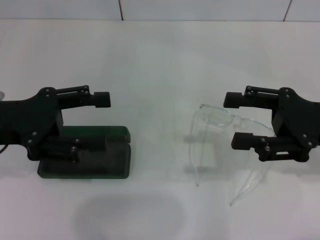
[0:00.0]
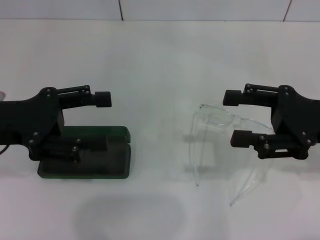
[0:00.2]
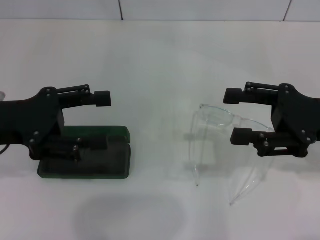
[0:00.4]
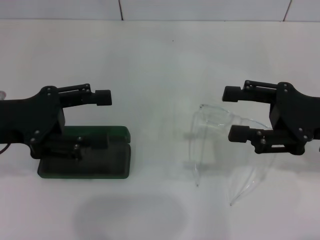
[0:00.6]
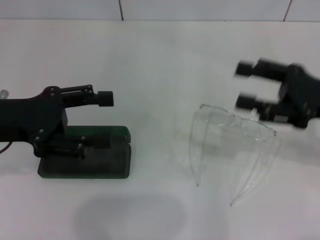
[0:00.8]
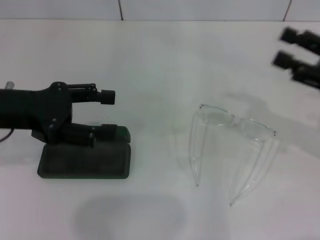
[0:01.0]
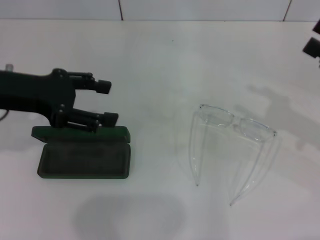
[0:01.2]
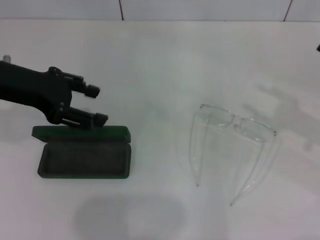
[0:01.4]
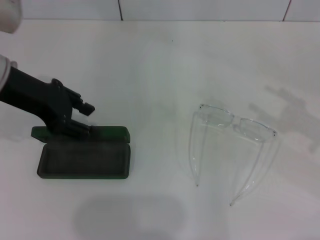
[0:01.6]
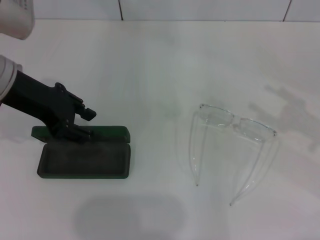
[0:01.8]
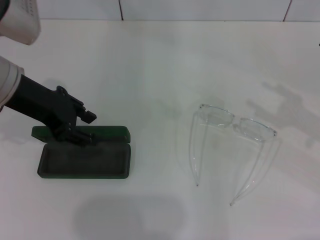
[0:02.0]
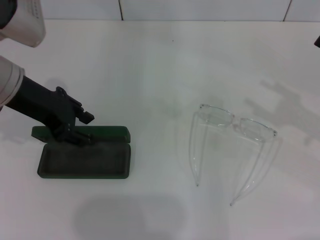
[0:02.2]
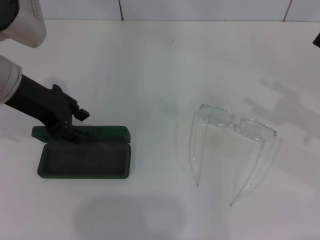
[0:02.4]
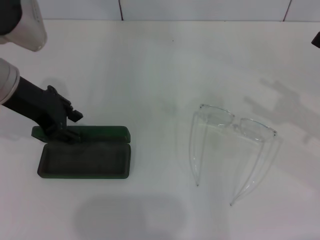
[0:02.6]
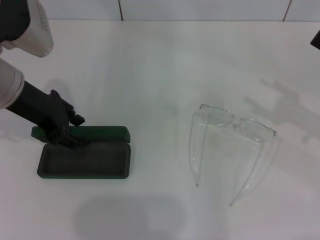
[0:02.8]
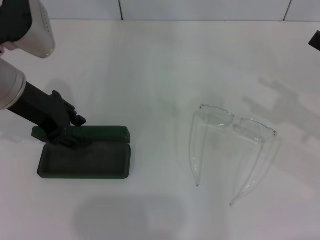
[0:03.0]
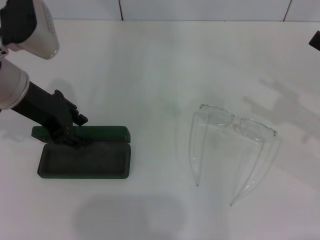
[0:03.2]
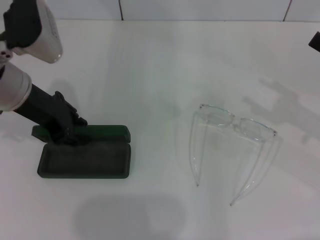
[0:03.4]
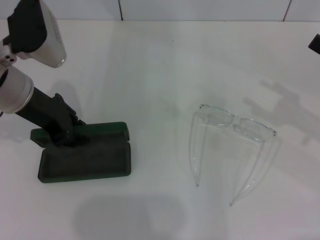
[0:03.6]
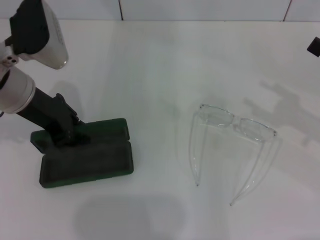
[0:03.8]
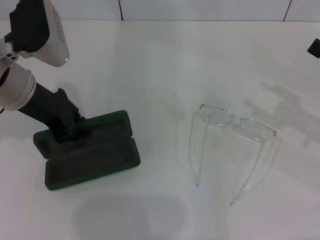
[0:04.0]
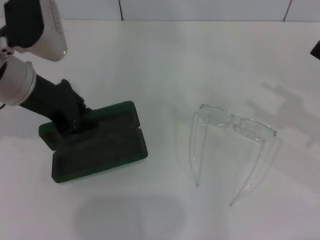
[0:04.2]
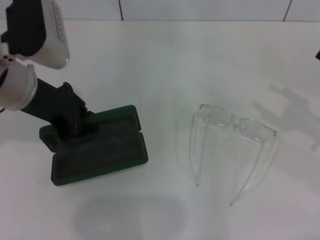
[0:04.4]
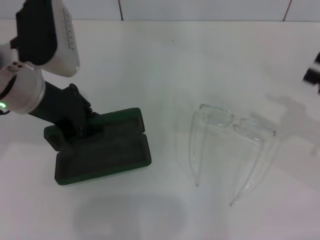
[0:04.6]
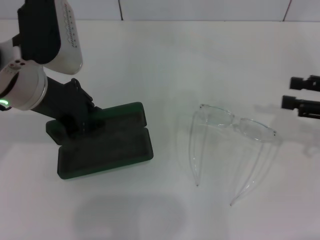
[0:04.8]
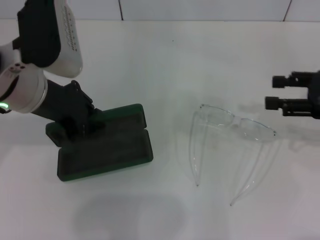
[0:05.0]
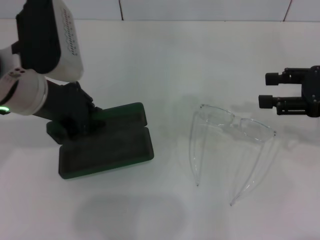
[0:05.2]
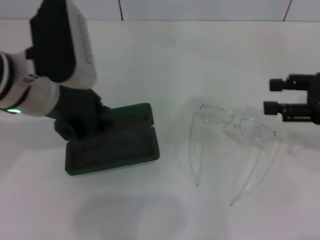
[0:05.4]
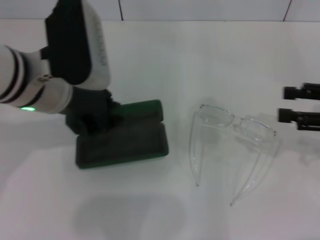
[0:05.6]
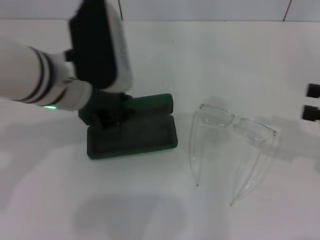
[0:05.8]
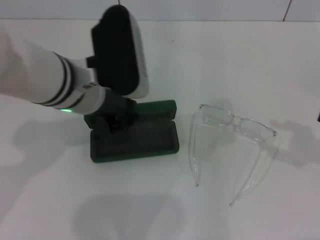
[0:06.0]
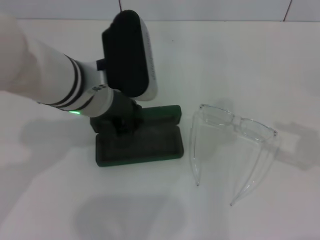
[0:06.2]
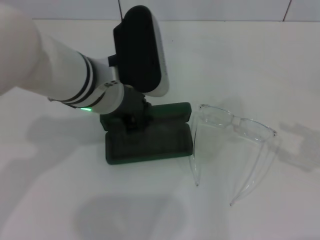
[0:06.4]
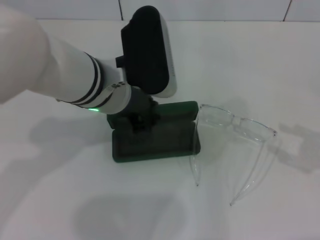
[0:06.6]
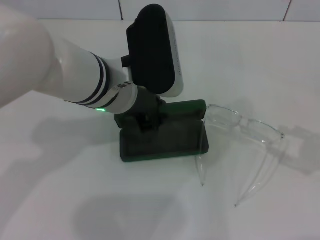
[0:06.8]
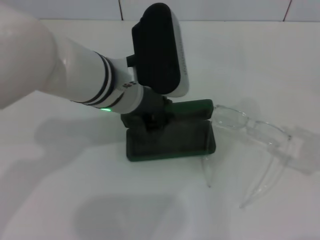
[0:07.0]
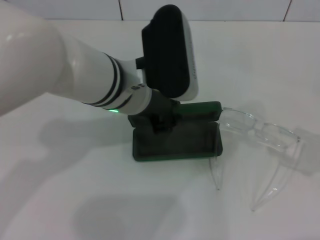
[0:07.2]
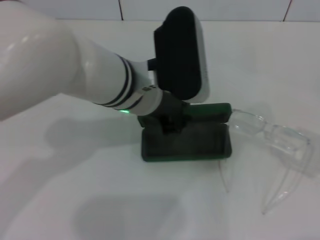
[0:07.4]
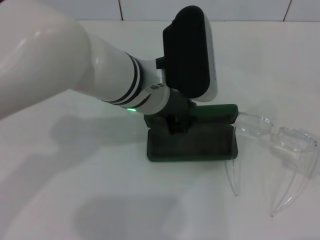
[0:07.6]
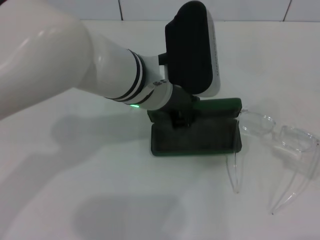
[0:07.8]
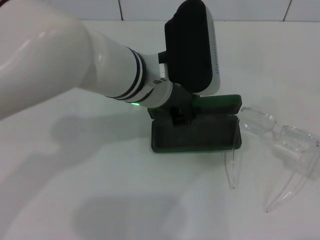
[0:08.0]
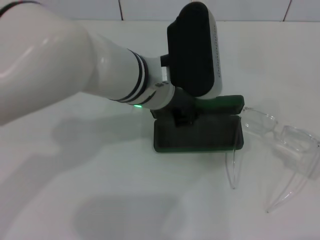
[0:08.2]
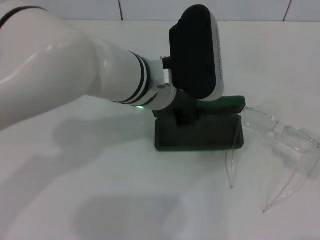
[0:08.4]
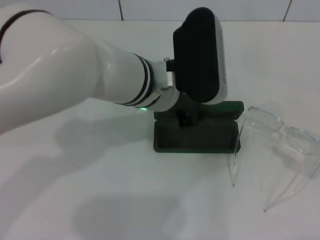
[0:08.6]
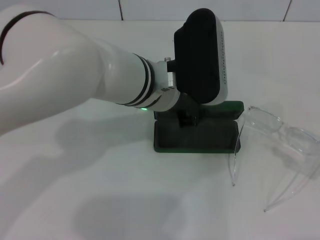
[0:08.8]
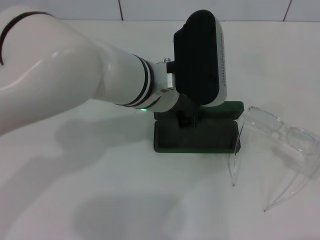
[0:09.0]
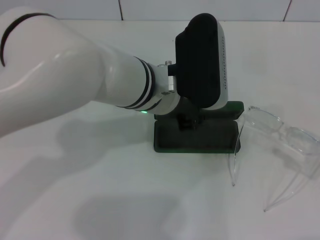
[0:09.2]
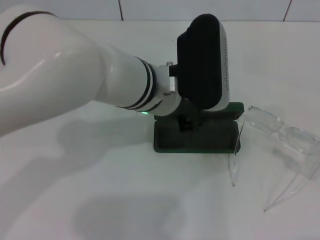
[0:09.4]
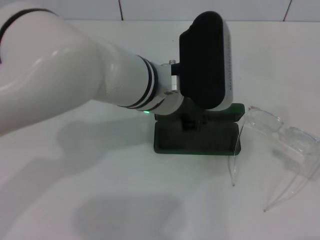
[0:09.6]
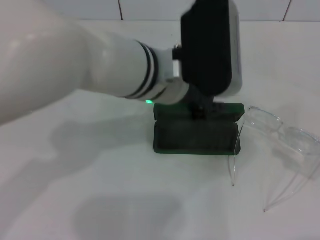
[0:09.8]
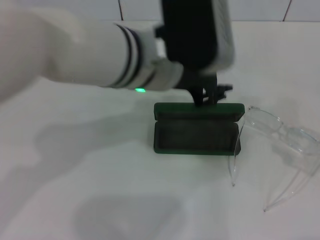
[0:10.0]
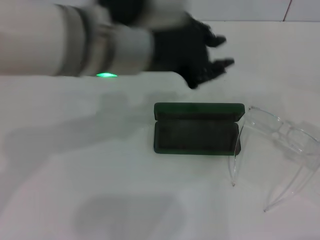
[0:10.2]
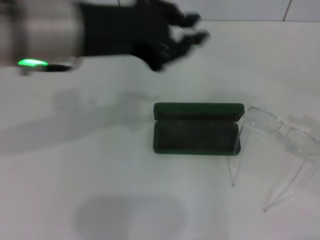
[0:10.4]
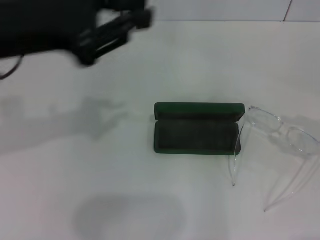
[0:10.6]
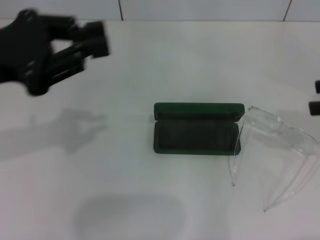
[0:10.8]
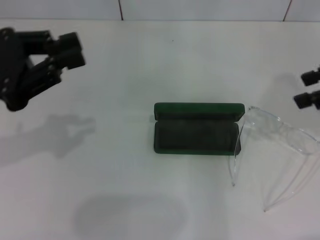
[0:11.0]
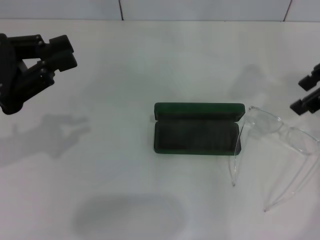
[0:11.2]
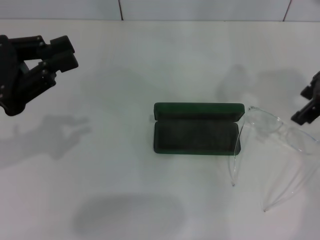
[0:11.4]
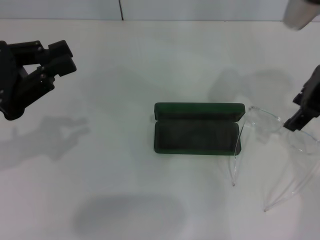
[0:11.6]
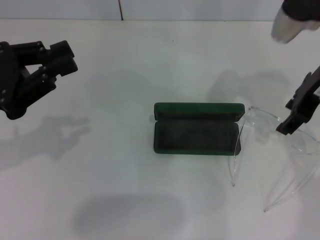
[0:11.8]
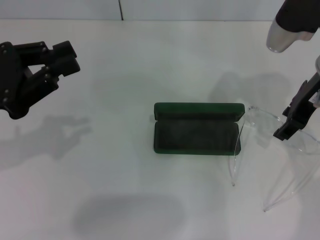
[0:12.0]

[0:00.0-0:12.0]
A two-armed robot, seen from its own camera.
Step, 0:00.0 to 0:03.8: Grab the glasses case with your left hand.
Step, 0:04.0 to 0:09.6: Place the glasses case in the center of the table with your left hand.
0:00.0 to 0:01.6: The left gripper heads forward, covering about 5 cm. Meanwhile the right gripper heads to the right, covering about 10 cm.
0:01.6 to 0:03.0: The left gripper closes up.
0:03.0 to 0:04.4: The left gripper closes its fingers.
0:04.4 to 0:06.0: The left gripper moves to the right, roughly 10 cm.
0:06.0 to 0:07.6: The left gripper goes approximately 10 cm to the right.
0:07.6 to 0:09.0: The grippers move only a little.
0:09.0 to 0:10.4: The left gripper is displaced to the left and upward by approximately 15 cm.
0:10.4 to 0:12.0: The right gripper is displaced to the left and forward by some 25 cm; the left gripper is displaced to the left and downward by roughly 15 cm.

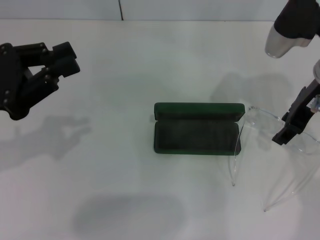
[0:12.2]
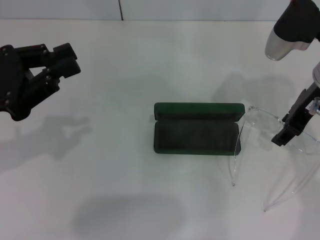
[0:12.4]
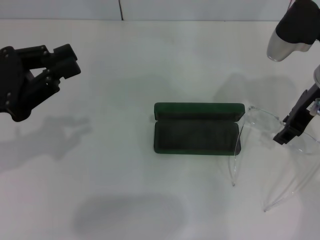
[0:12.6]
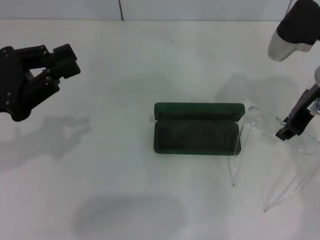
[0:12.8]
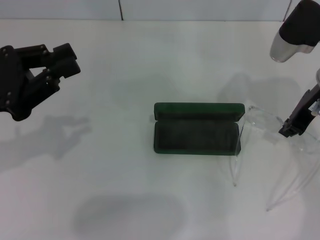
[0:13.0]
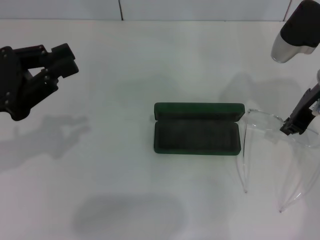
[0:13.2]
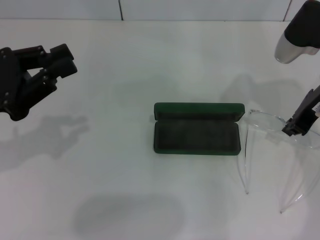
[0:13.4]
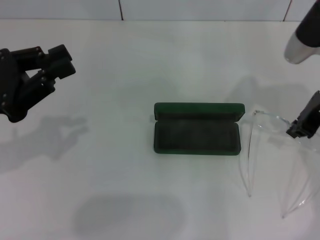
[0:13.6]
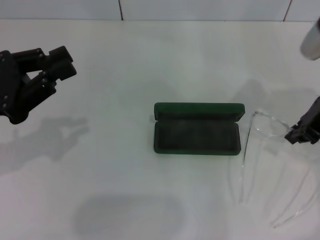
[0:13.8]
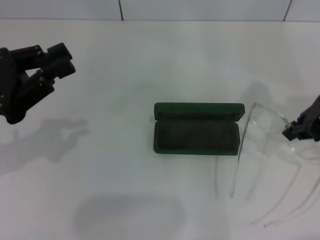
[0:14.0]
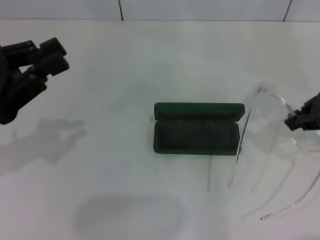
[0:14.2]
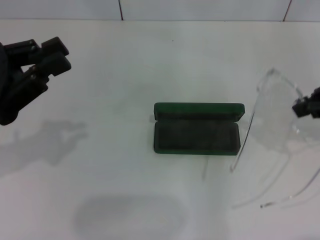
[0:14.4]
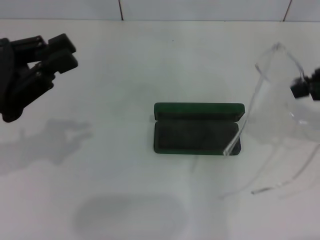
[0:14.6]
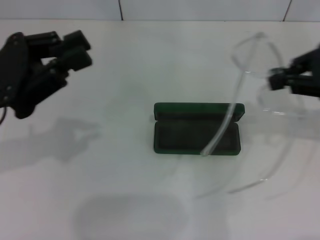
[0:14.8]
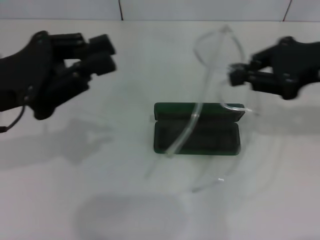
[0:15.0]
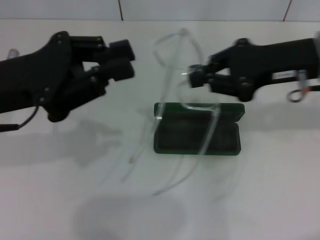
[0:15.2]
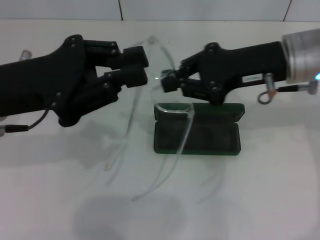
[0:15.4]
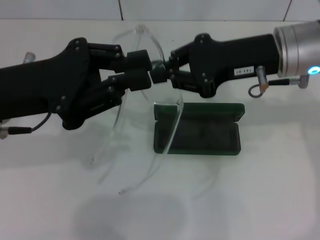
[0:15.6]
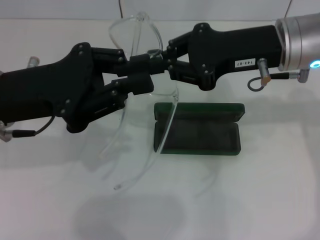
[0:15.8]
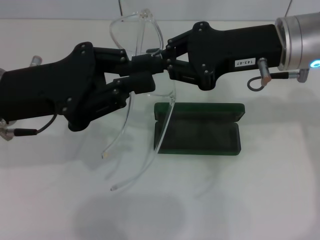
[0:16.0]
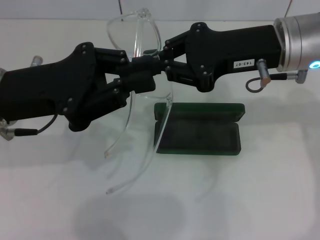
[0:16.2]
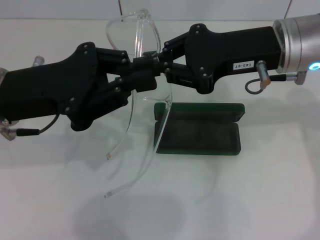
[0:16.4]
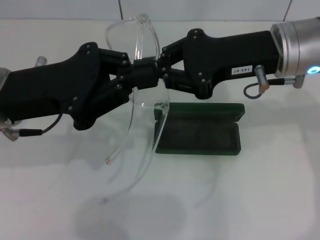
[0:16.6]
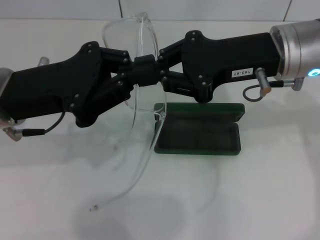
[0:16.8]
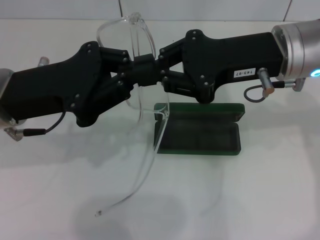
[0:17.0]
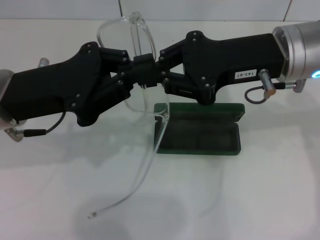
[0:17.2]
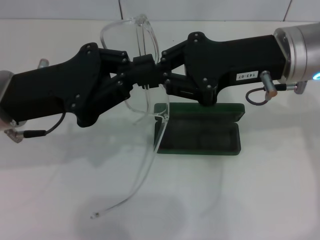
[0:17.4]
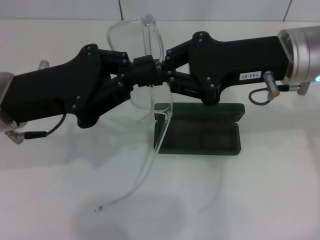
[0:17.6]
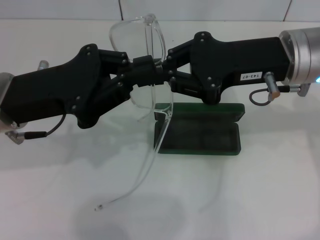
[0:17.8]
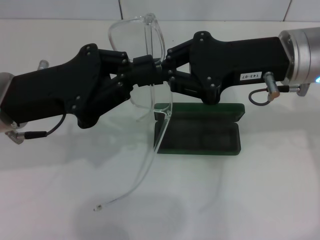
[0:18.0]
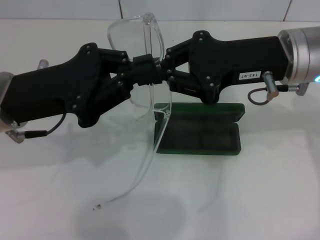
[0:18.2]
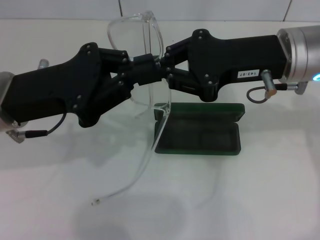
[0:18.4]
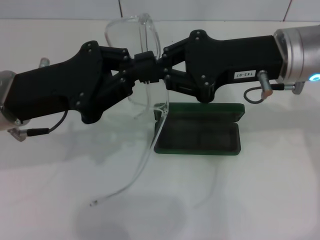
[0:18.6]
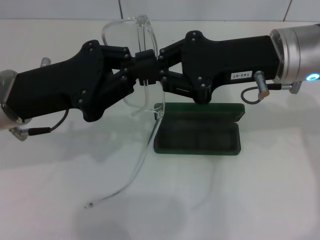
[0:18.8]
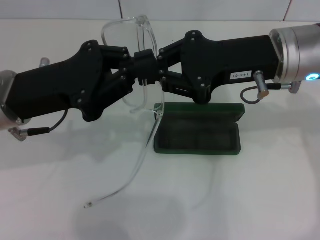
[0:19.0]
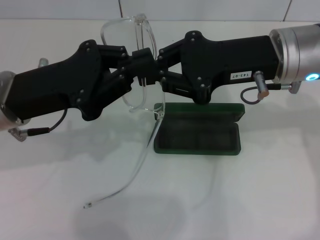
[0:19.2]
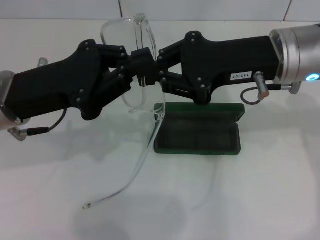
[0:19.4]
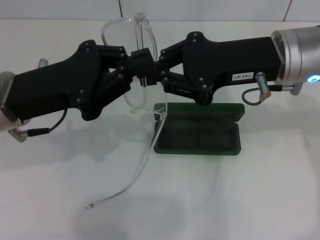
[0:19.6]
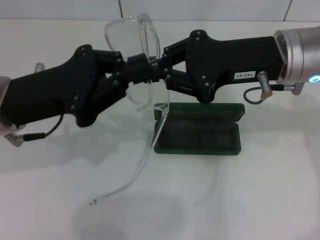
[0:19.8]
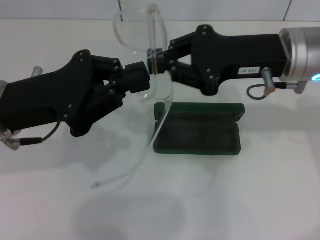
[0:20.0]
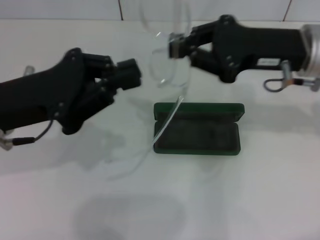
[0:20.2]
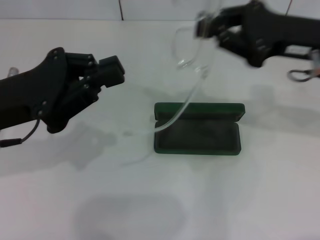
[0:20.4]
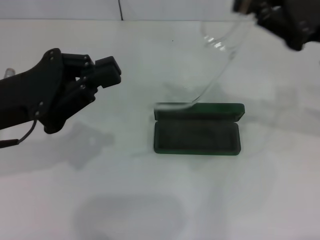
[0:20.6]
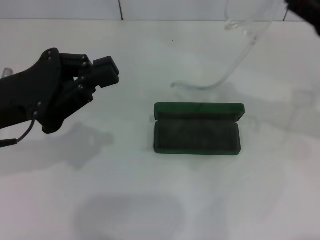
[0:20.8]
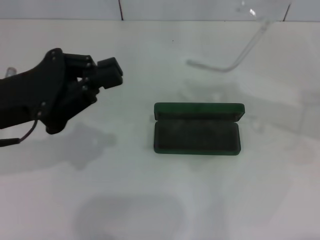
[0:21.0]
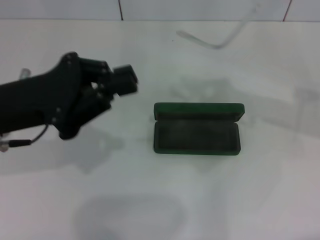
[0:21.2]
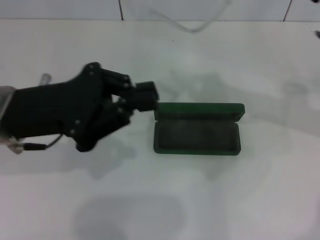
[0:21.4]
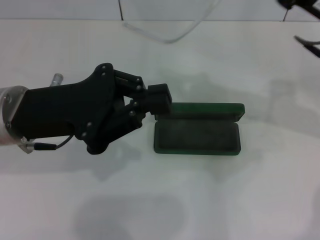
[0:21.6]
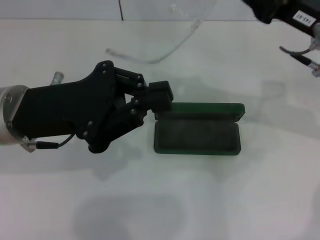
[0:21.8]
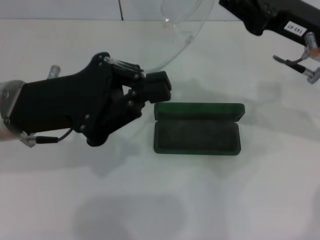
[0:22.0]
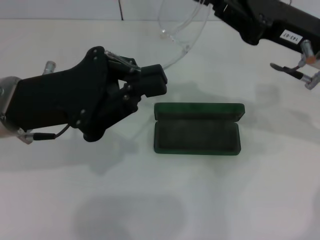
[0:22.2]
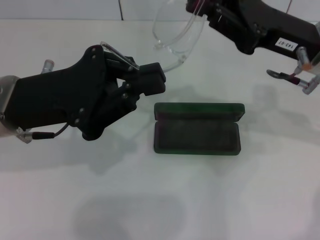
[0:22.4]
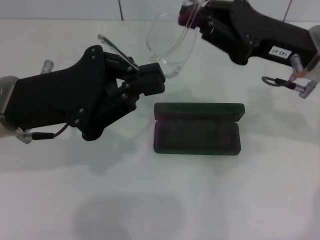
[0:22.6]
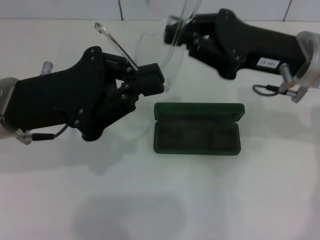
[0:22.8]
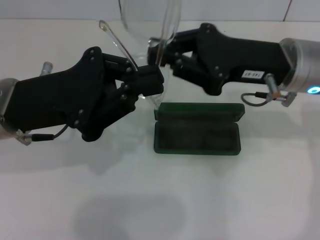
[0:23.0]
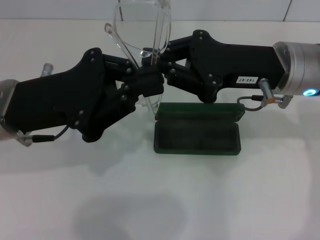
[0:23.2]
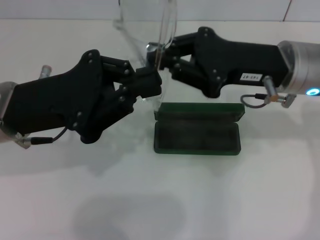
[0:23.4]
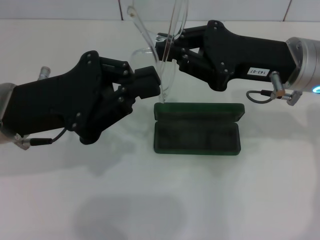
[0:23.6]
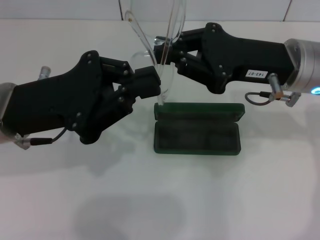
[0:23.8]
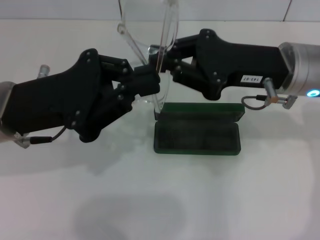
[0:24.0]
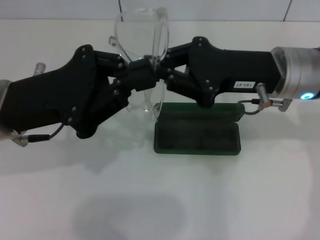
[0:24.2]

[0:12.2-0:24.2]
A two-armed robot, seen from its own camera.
0:12.2 to 0:13.8: The right gripper closes its fingers.
0:13.8 to 0:15.2: The left gripper shifts about 5 cm to the right.
0:16.6 to 0:18.2: Neither gripper changes place.
0:18.2 to 0:19.8: Neither gripper changes place.
0:19.8 to 0:21.2: The right gripper is displaced to the right by some 10 cm.
0:21.2 to 0:22.6: The right gripper travels to the left by approximately 5 cm.
